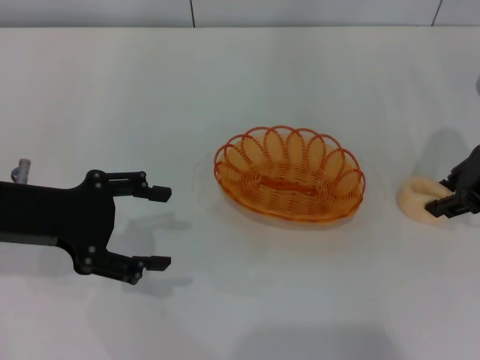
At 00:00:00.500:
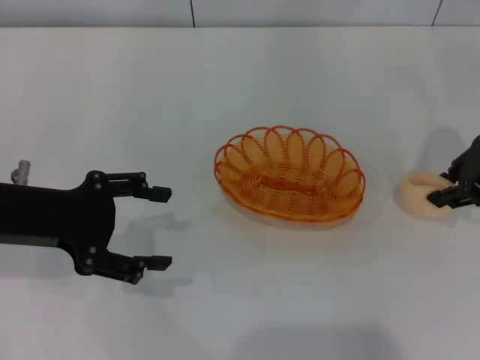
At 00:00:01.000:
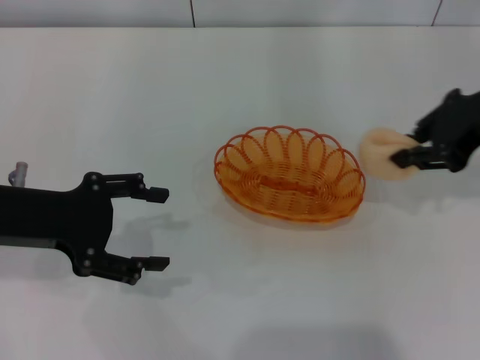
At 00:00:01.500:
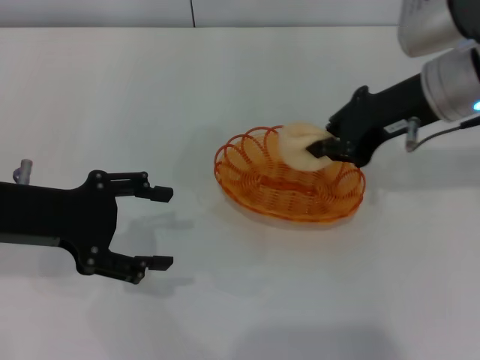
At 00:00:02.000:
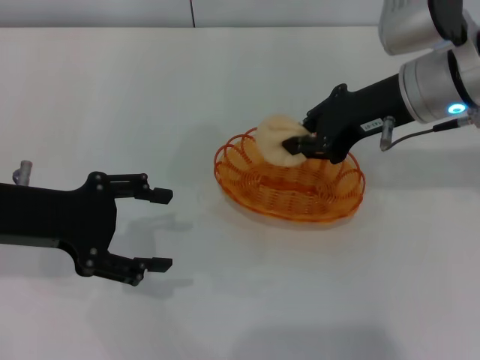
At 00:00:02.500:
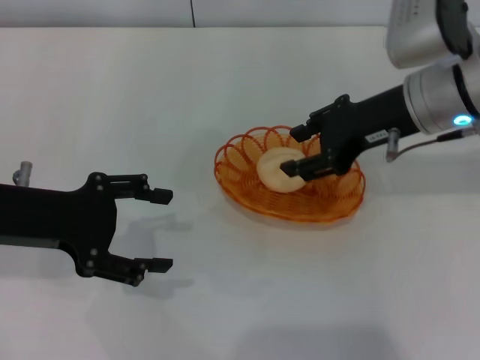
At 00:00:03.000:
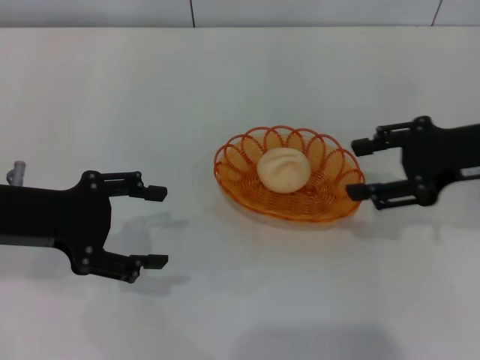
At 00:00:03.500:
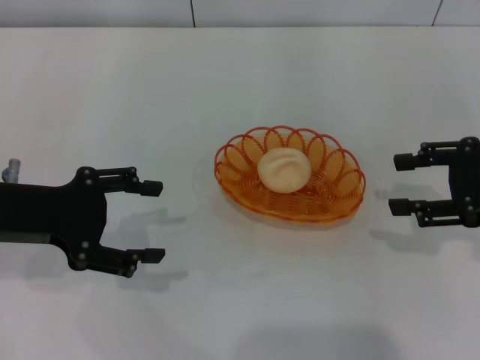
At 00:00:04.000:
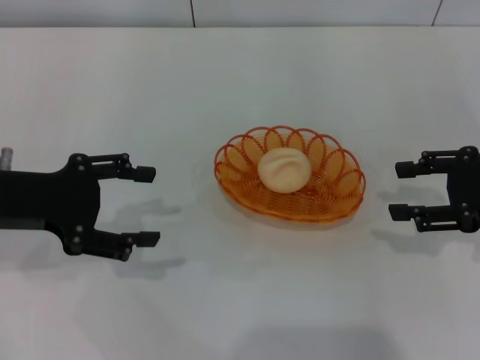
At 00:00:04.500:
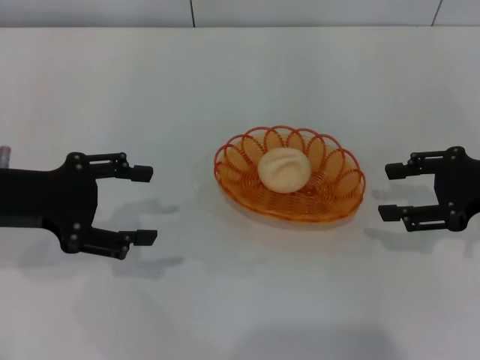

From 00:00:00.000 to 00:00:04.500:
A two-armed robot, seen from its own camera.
Step, from 00:00:01.000 to 00:00:02.500: Place the egg yolk pastry into the basket with the right gripper.
From 00:00:00.000 to 00:00:02.000: The right gripper travels to the left by some 10 cm, and closes its fingers.
From 00:00:02.000 to 00:00:04.500: The right gripper heads to the right, backward and downward, covering some 15 cm, and opens.

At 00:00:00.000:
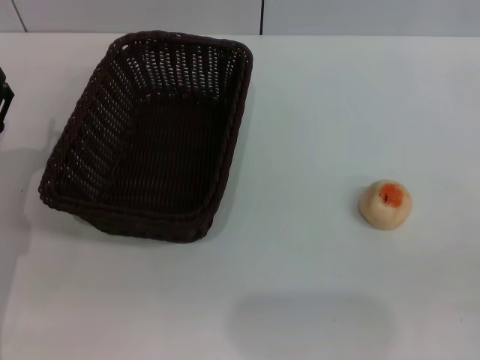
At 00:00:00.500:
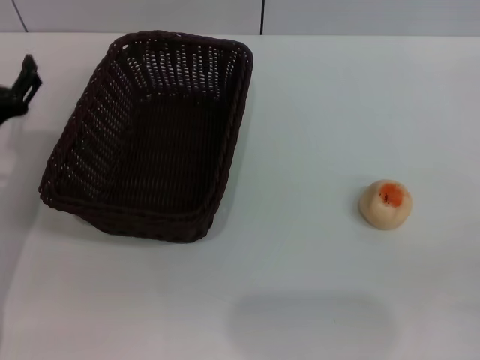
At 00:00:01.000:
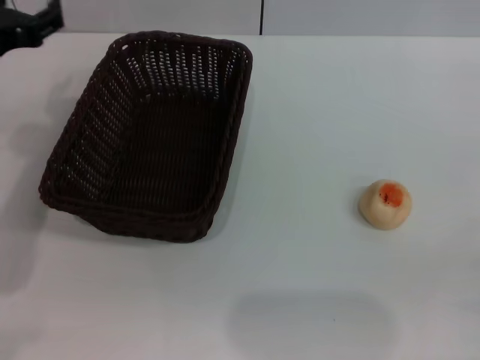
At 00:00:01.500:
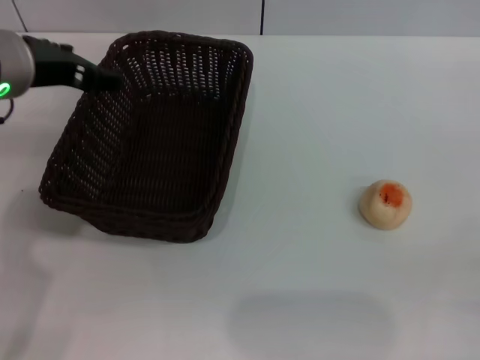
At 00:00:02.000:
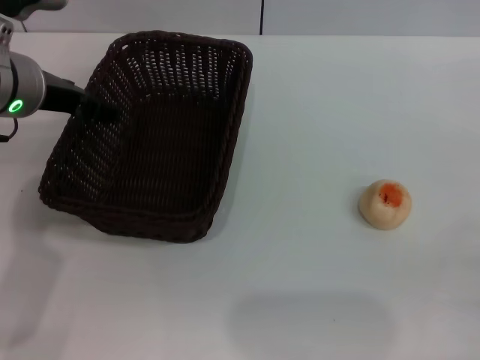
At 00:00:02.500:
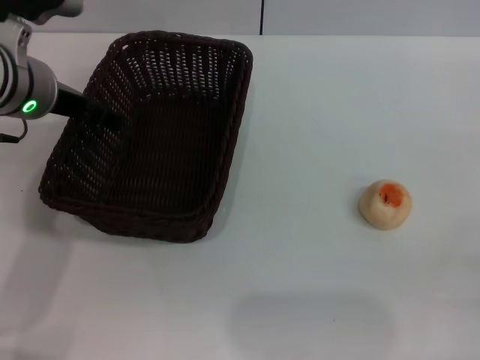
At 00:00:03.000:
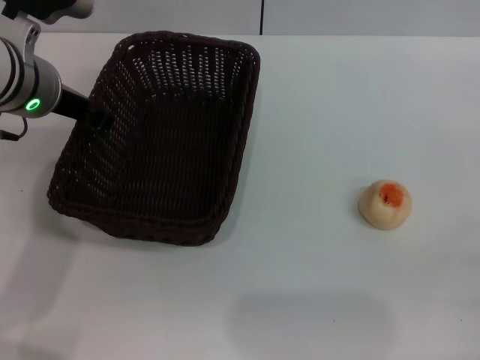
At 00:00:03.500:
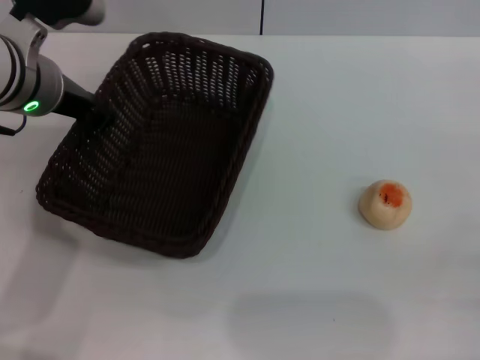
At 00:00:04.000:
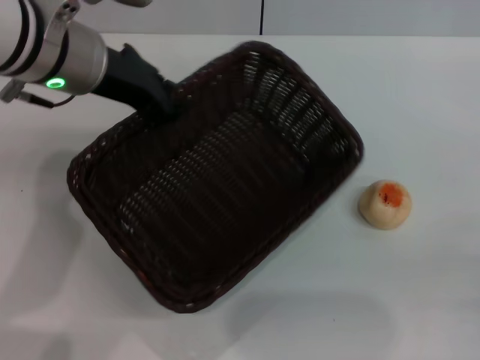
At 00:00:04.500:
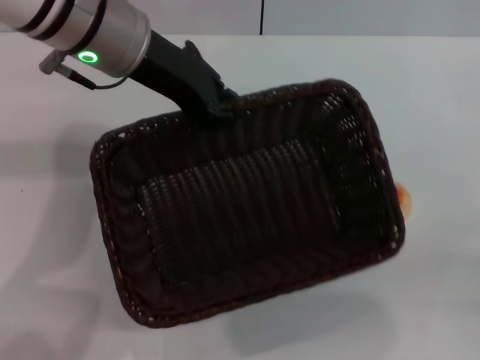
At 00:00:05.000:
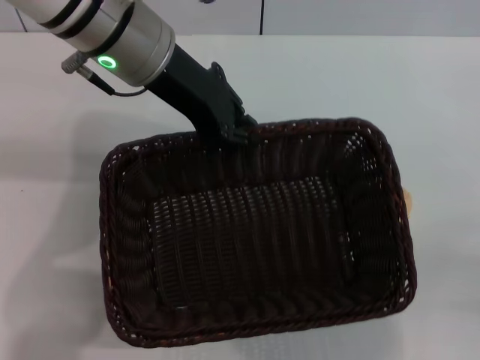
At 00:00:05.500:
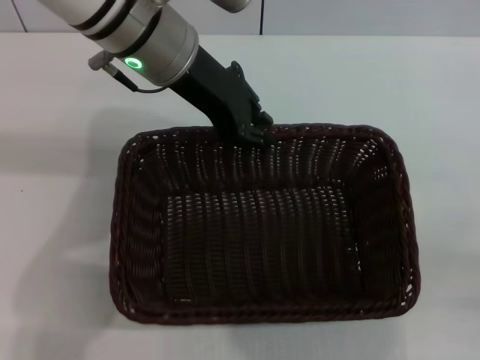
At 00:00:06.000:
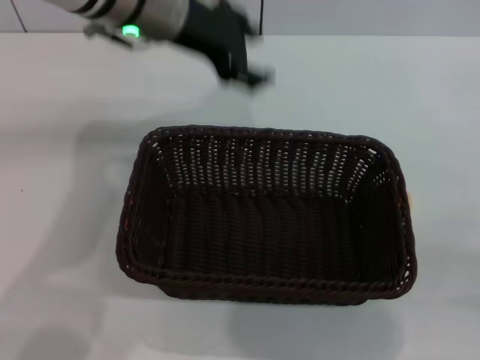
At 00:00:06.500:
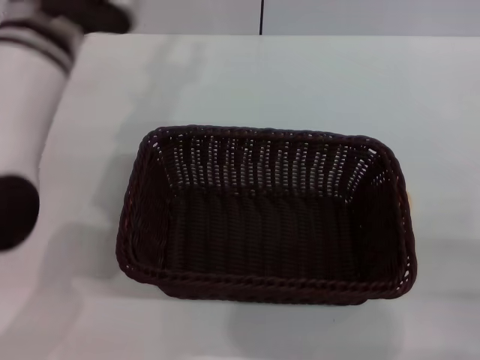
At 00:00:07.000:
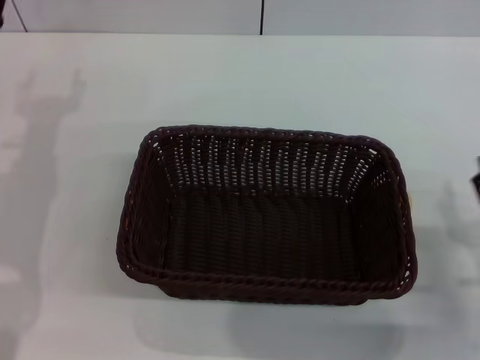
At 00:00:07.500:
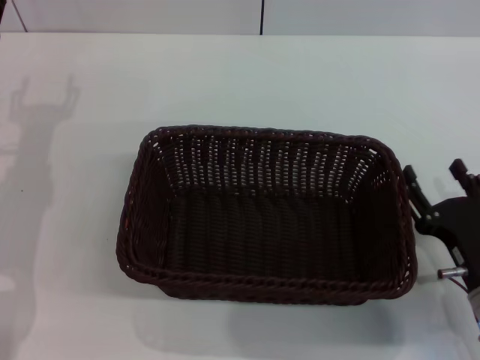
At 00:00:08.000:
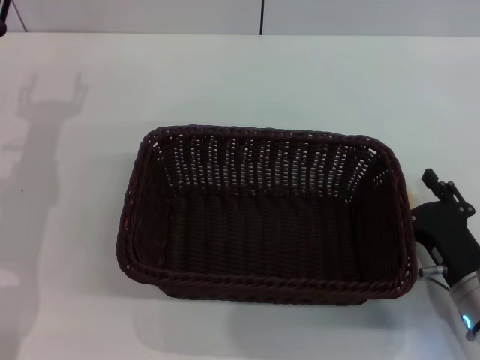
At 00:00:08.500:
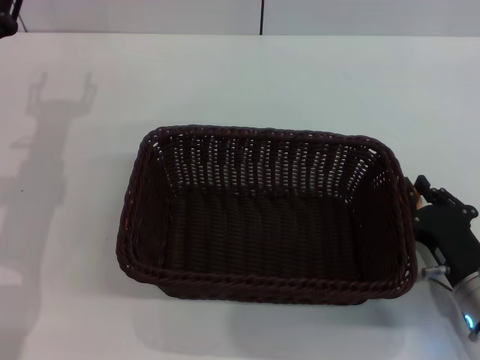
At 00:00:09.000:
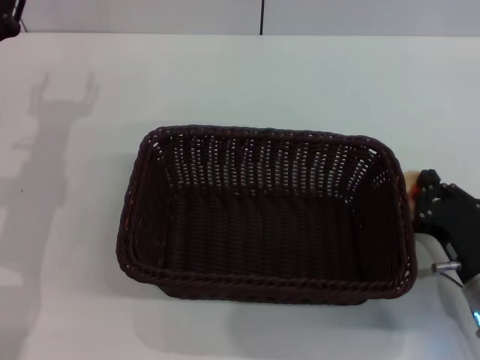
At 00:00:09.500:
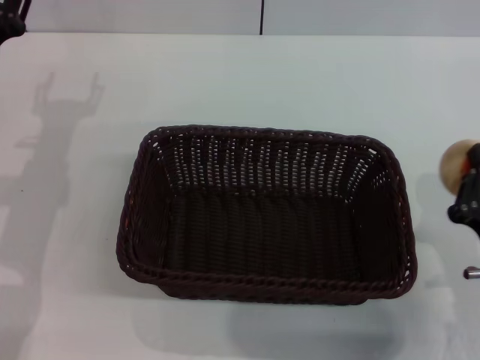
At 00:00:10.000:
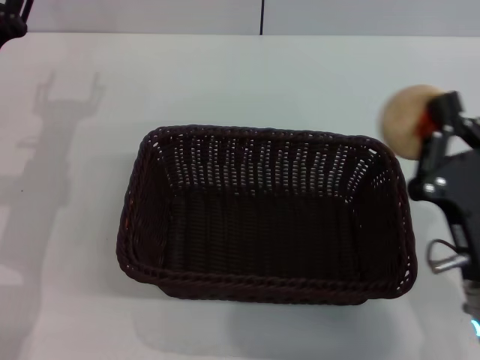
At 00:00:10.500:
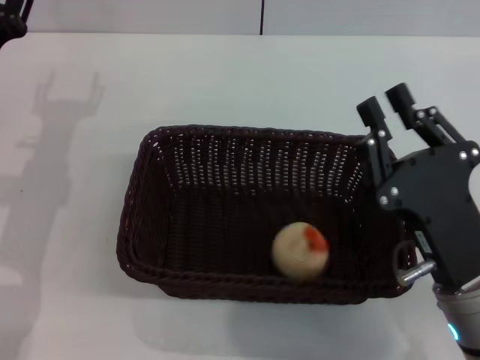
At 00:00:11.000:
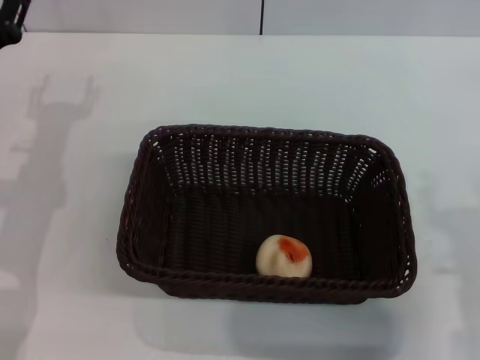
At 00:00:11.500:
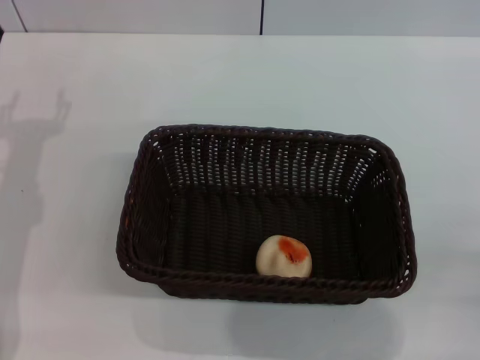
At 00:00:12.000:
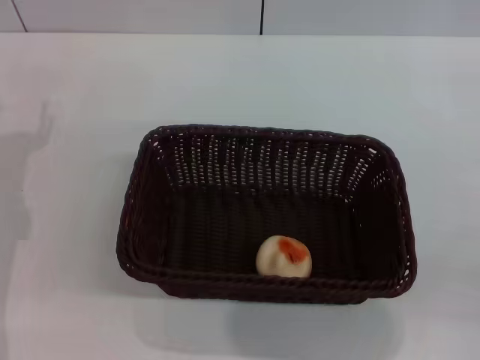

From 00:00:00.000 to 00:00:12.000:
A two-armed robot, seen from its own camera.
Step, from 00:00:00.000 to 00:00:05.500: Move the basket to the center of view with the left gripper.
Step, from 00:00:06.000 to 00:00:09.500: Pick up the egg yolk pastry with the right gripper.
Step, from 00:00:10.000 to 00:00:10.500: Place the egg yolk pastry into the basket with the right gripper.
From 00:00:00.000 to 00:00:02.000: The left gripper goes some 20 cm upward, forward and to the right.
From 00:00:02.000 to 00:00:04.000: The left gripper shifts by roughly 5 cm, and closes up.
From 00:00:04.000 to 00:00:06.000: The left gripper is displaced to the right by approximately 5 cm.
From 00:00:06.000 to 00:00:08.000: The left gripper moves to the left, downward and backward, about 25 cm, and opens, while the right gripper travels to the left, forward and downward by approximately 10 cm.
From 00:00:08.000 to 00:00:10.000: The right gripper moves upward, some 10 cm, and closes up.
From 00:00:10.000 to 00:00:12.000: The right gripper shifts approximately 15 cm to the right, and opens. Meanwhile the left gripper moves approximately 5 cm.
